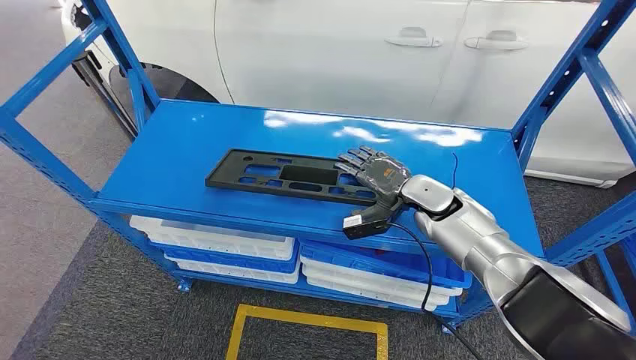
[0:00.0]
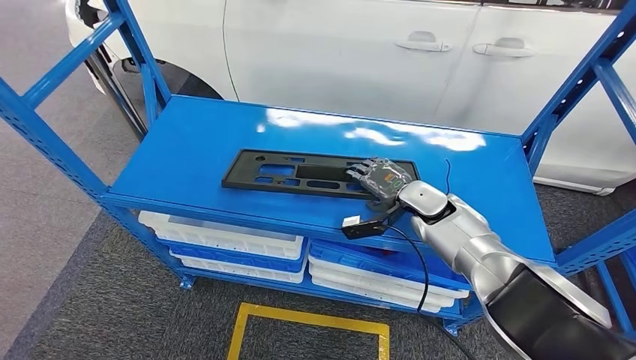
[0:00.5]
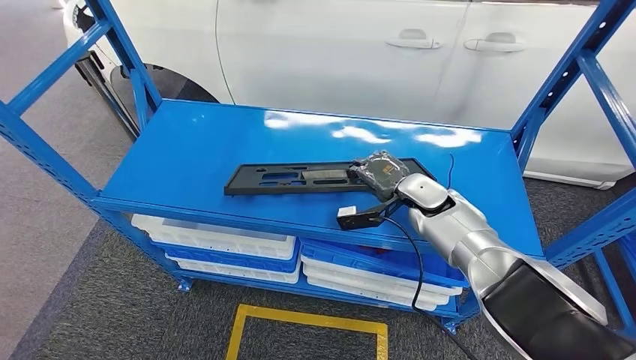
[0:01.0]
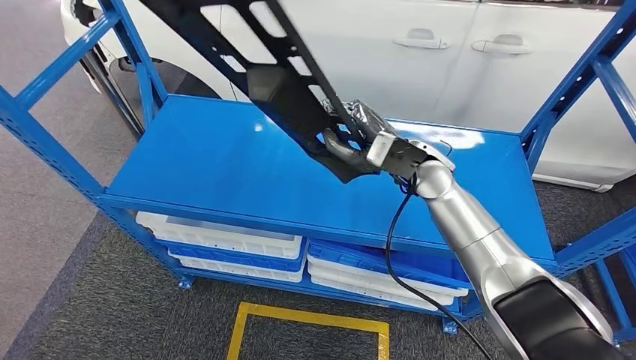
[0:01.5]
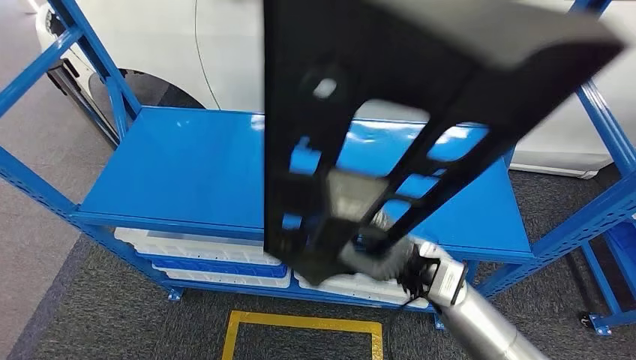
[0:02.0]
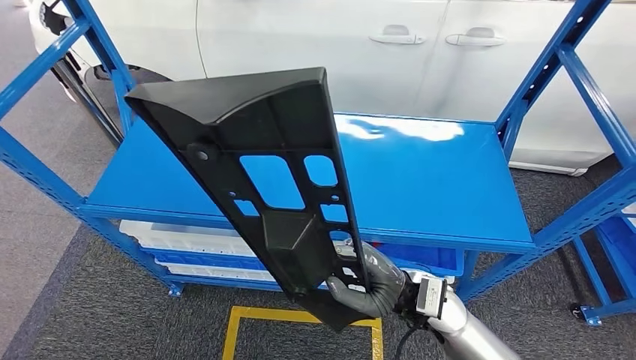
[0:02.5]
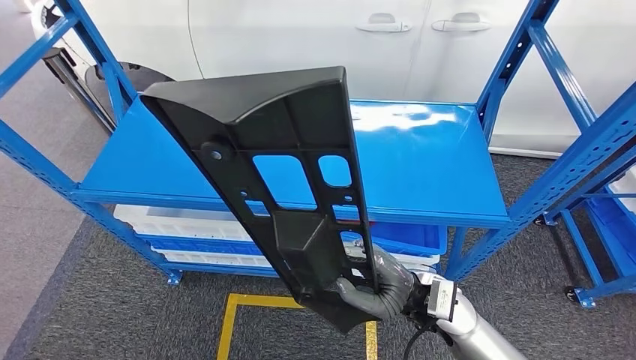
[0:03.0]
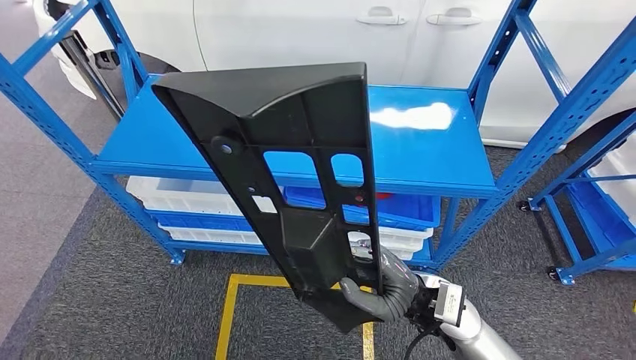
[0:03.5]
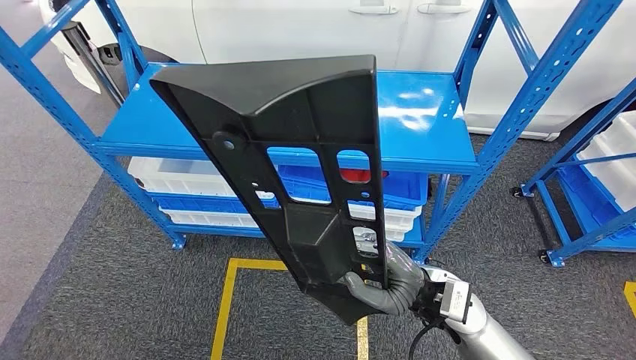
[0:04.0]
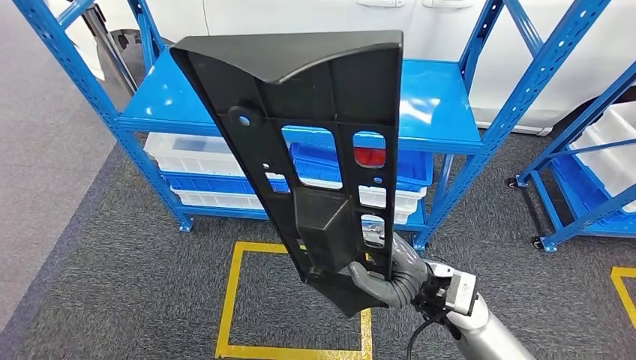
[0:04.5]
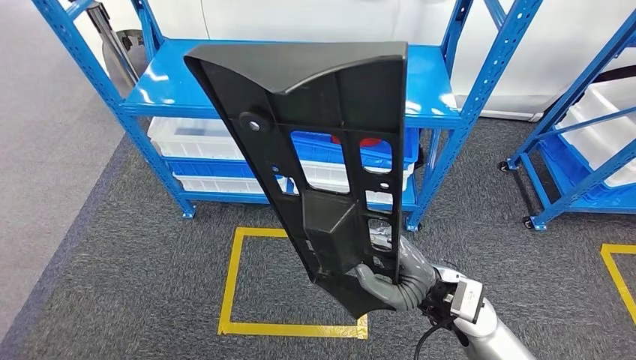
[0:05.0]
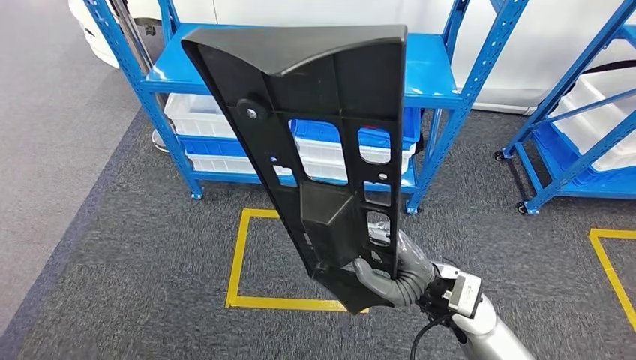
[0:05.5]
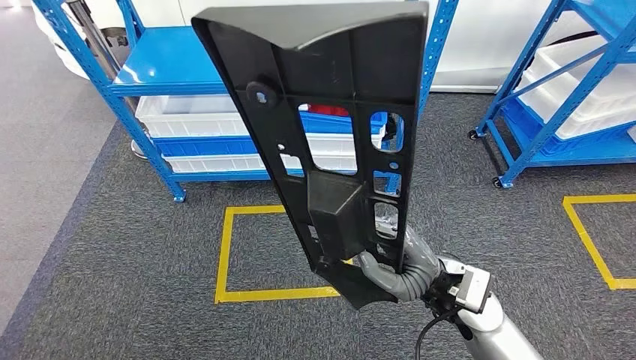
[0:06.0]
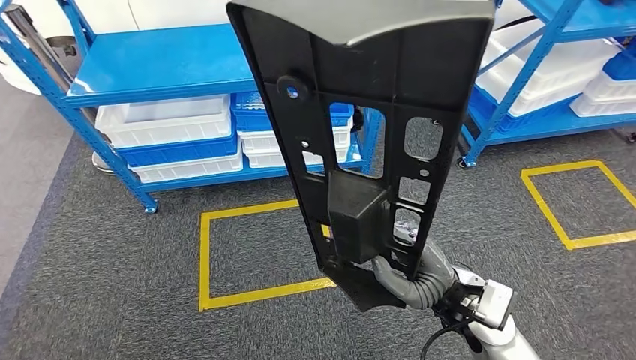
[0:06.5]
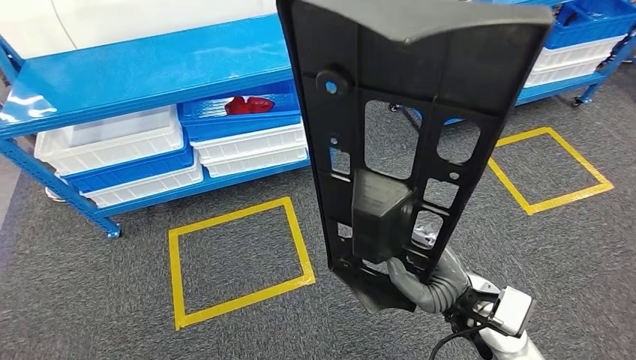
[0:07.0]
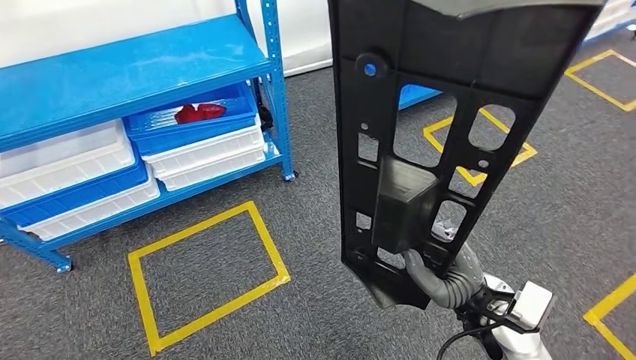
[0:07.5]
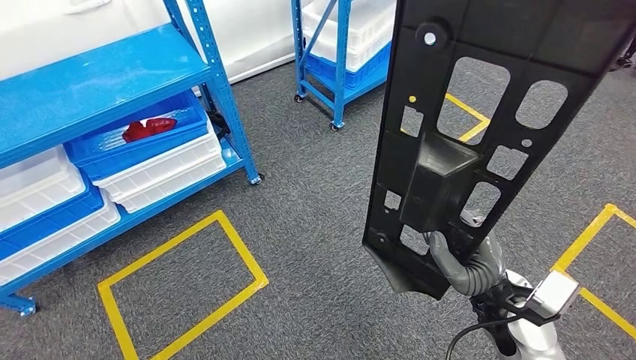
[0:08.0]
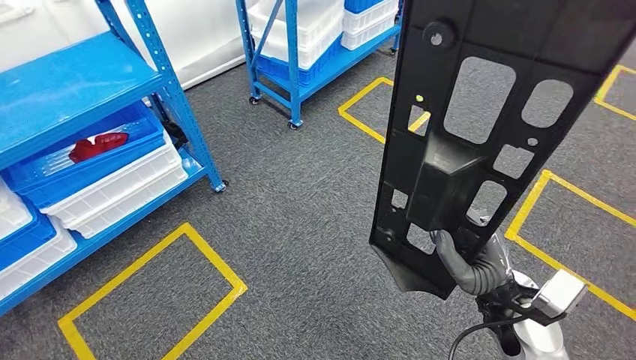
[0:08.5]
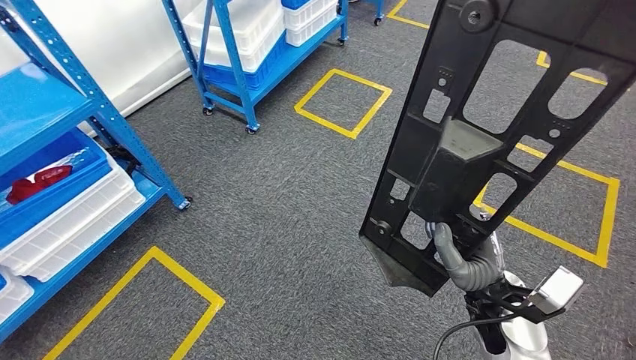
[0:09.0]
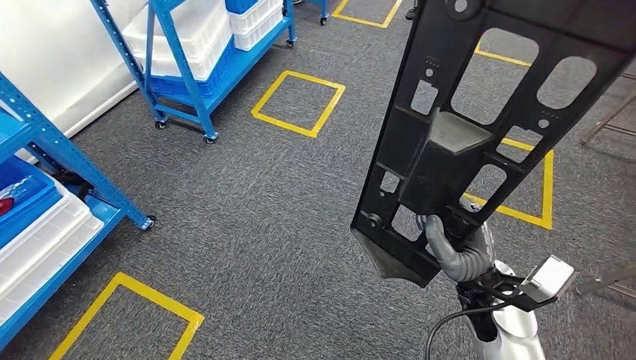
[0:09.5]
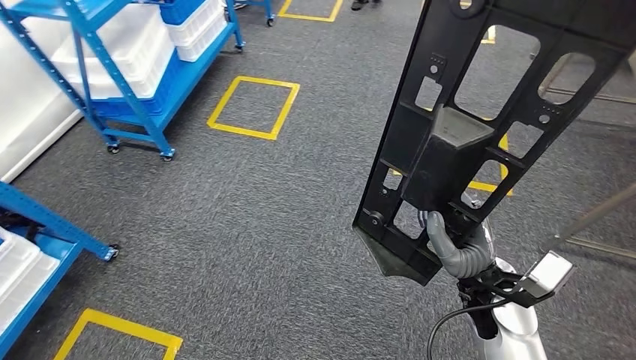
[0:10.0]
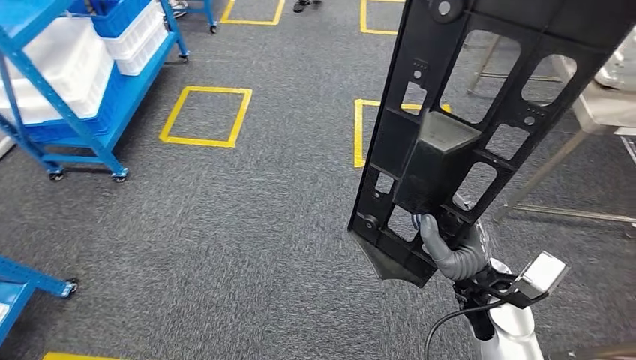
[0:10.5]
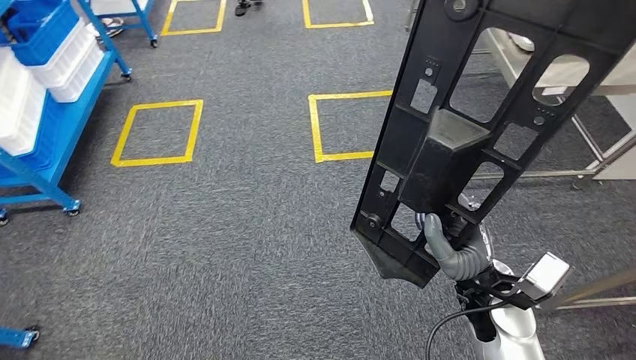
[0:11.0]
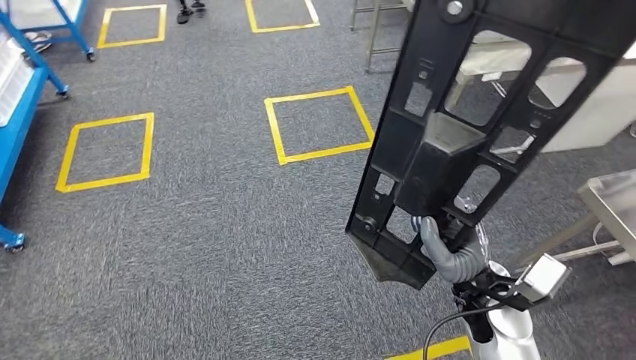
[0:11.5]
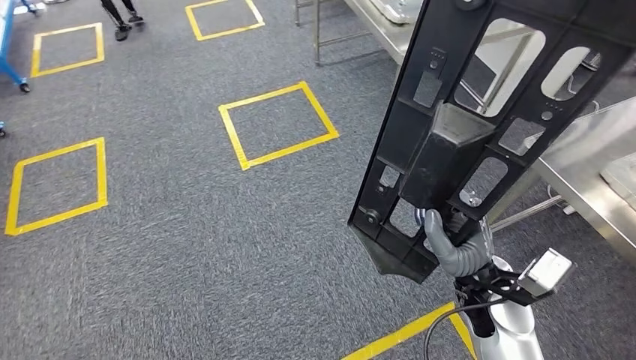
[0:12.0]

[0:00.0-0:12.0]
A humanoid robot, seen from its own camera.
Step, 0:00.0 to 0:02.5: Pick up the large material from the shelf.

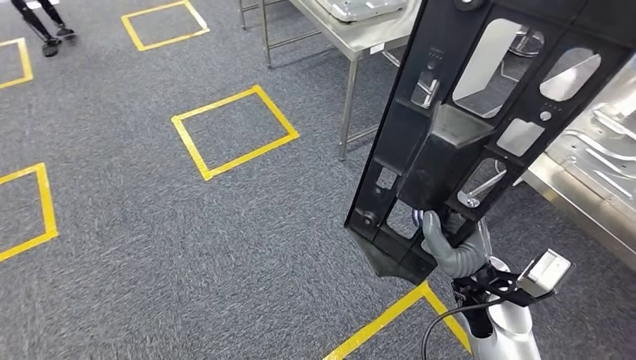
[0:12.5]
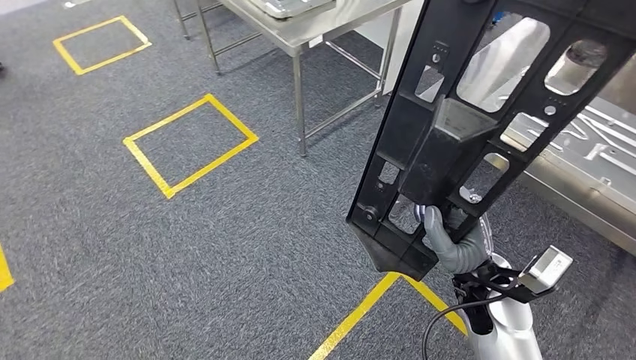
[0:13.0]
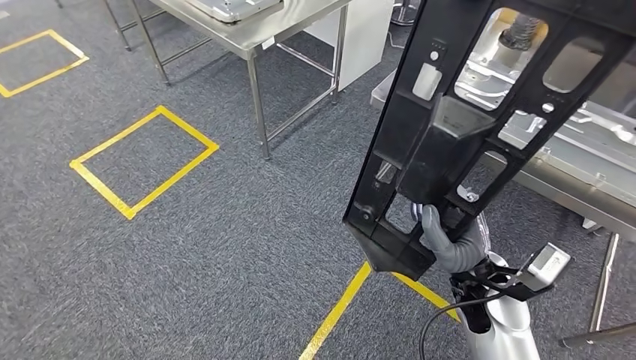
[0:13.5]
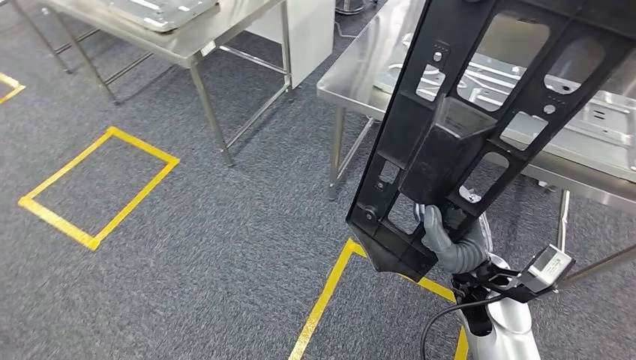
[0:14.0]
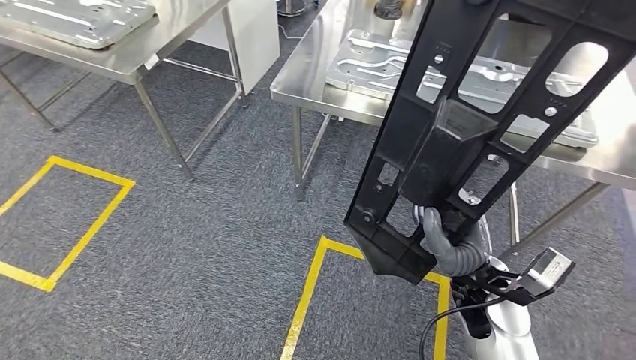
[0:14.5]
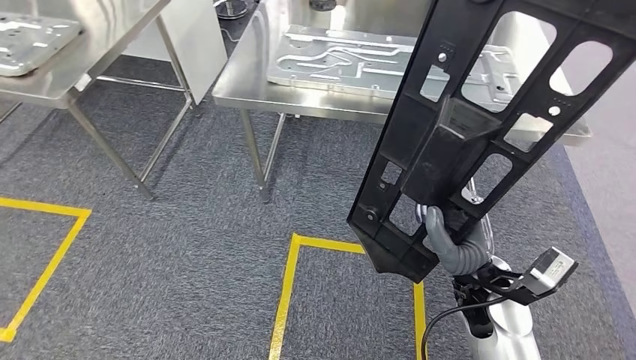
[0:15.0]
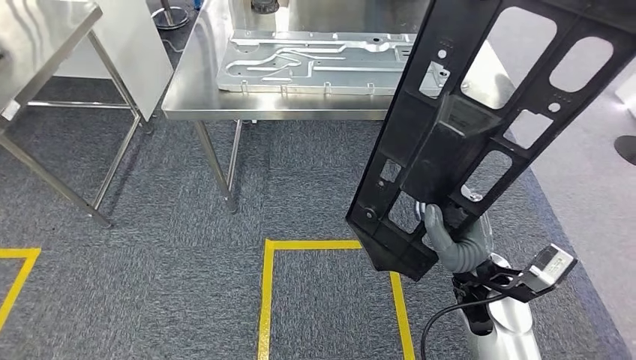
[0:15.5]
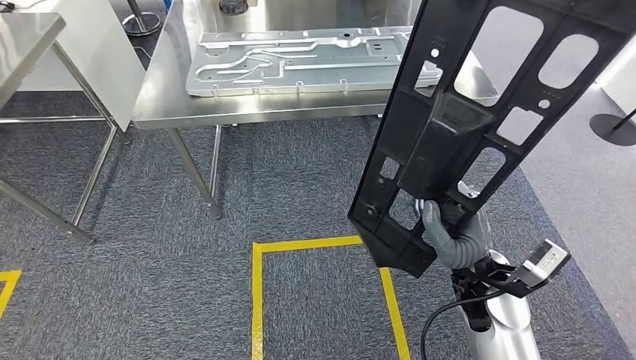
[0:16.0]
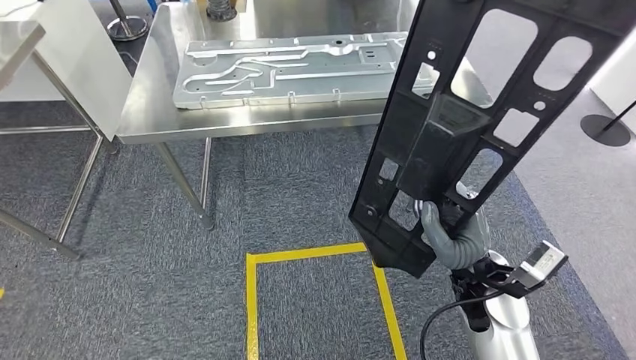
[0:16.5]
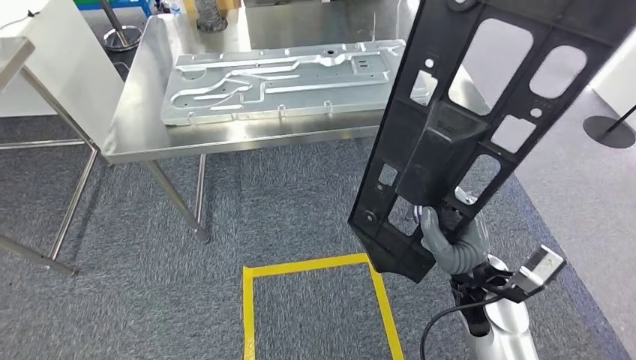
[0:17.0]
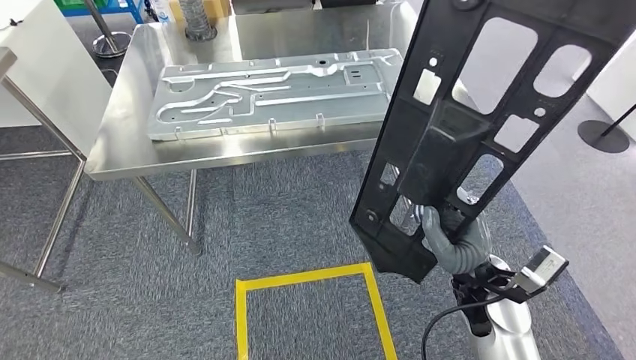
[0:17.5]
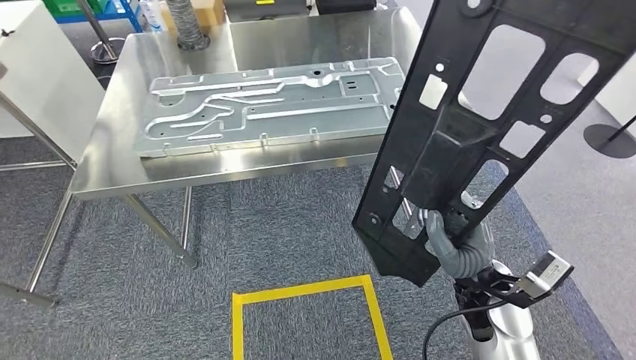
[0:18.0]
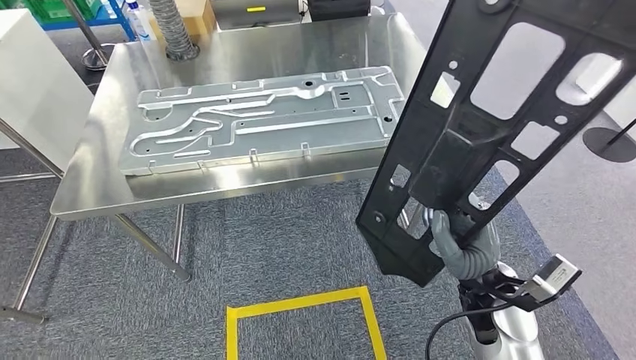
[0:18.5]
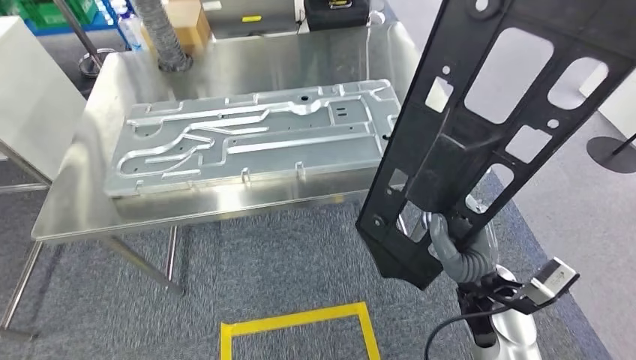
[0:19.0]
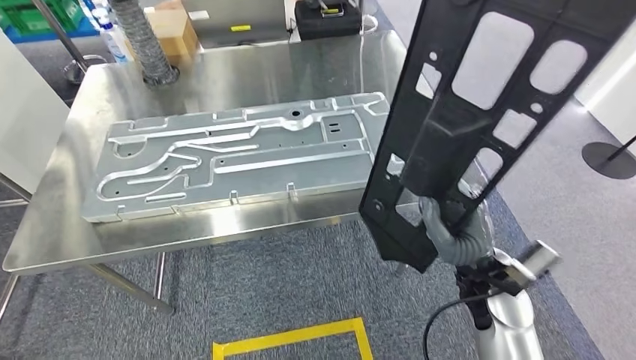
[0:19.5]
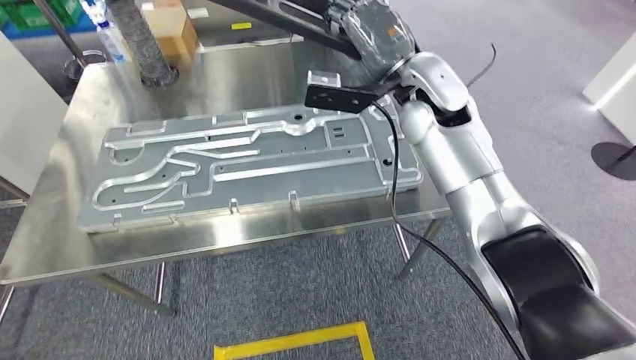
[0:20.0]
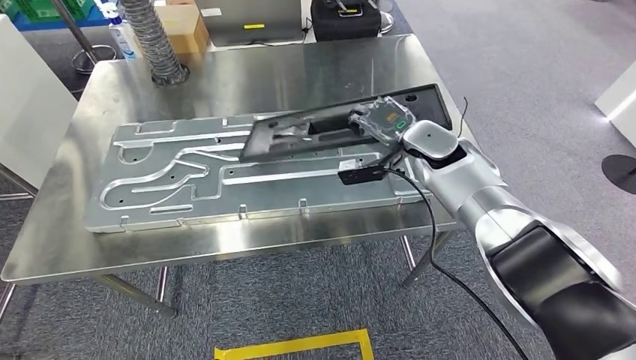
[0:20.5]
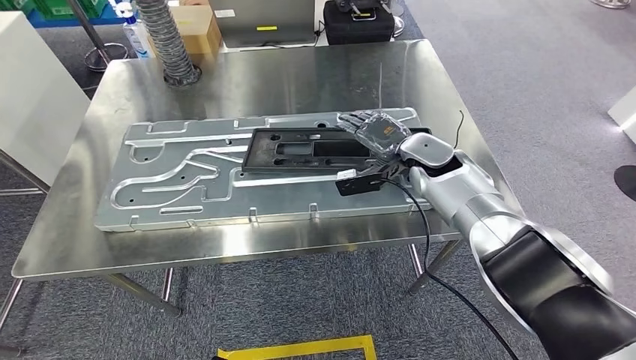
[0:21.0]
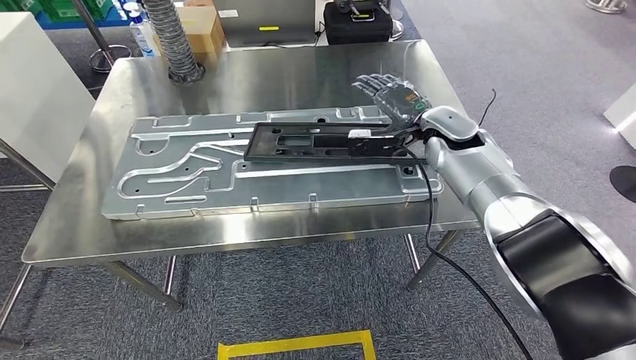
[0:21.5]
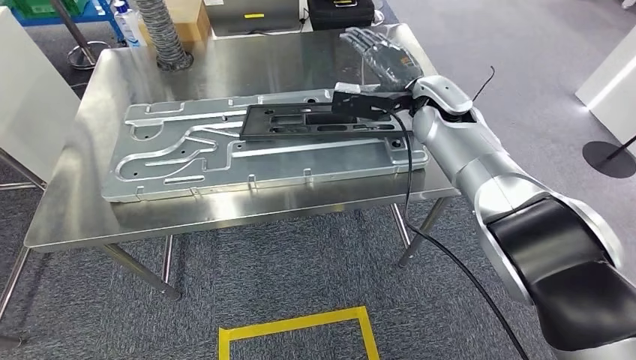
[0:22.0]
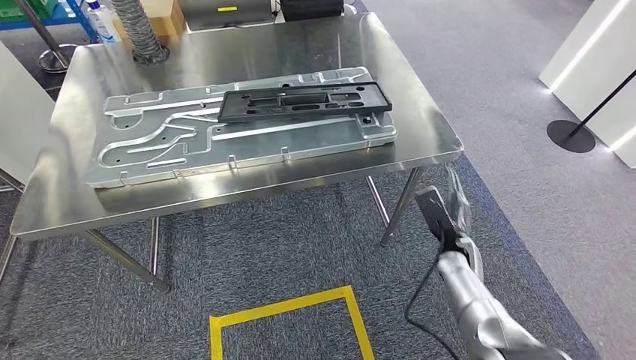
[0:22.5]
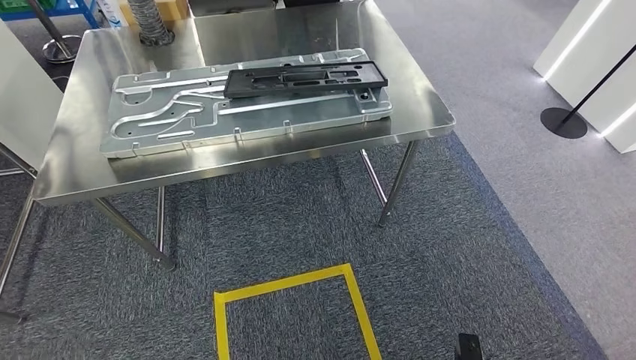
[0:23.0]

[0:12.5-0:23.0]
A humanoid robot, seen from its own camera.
Step, 0:12.5 to 0:16.5: Move the large material to the workbench.
Step, 0:20.0 to 0:22.0: Insert the large material into the corresponding slot on the workbench.
